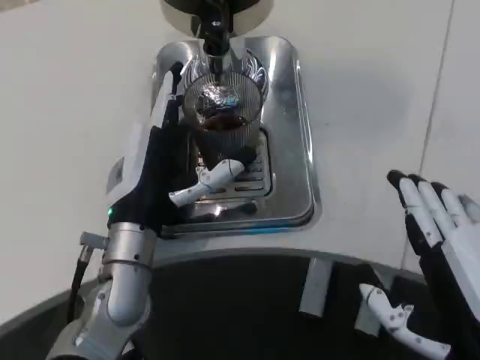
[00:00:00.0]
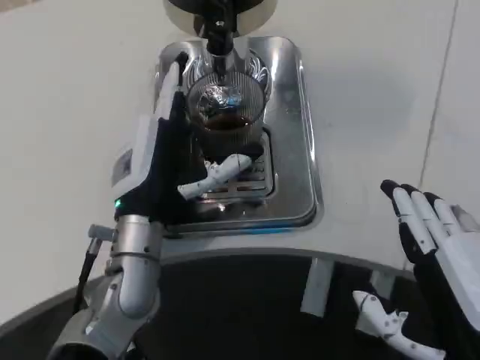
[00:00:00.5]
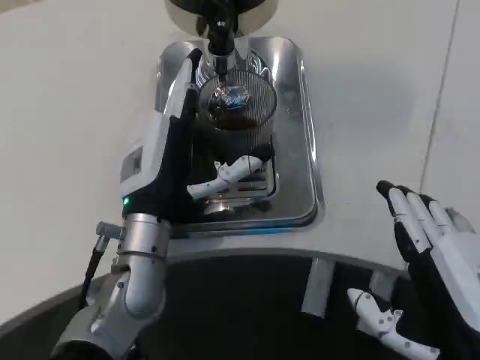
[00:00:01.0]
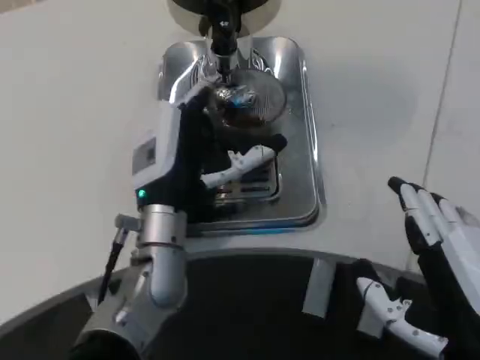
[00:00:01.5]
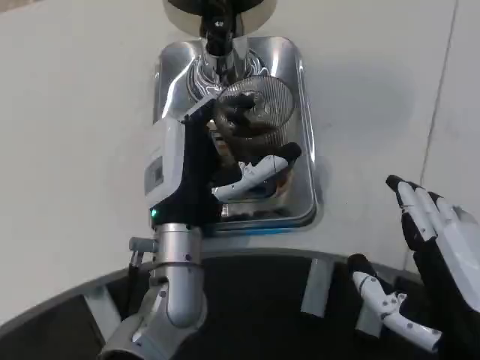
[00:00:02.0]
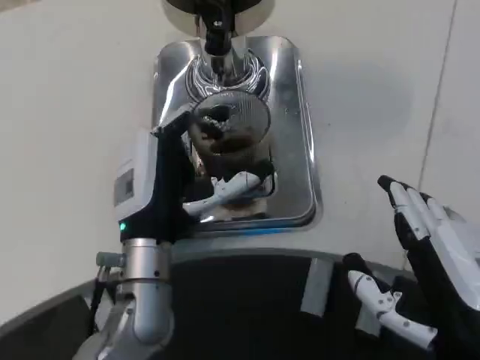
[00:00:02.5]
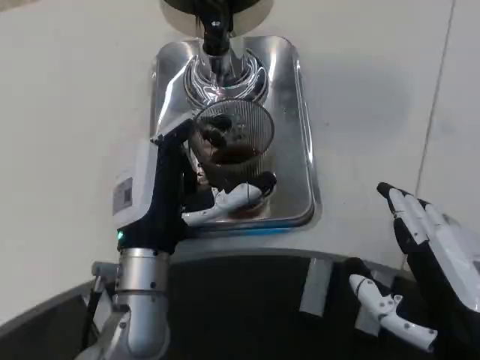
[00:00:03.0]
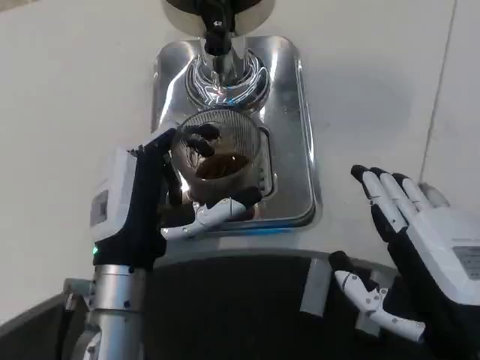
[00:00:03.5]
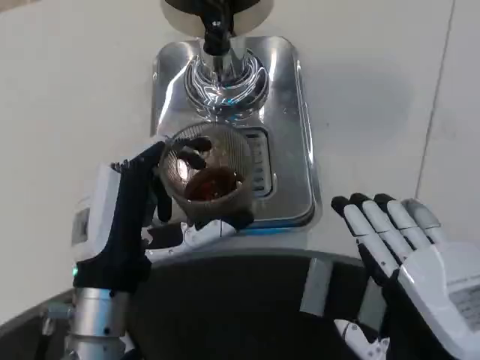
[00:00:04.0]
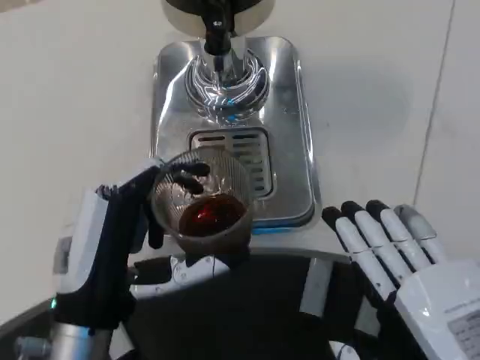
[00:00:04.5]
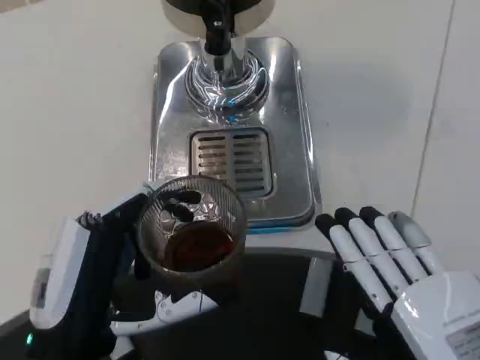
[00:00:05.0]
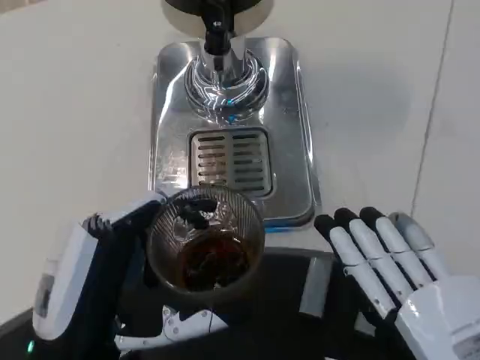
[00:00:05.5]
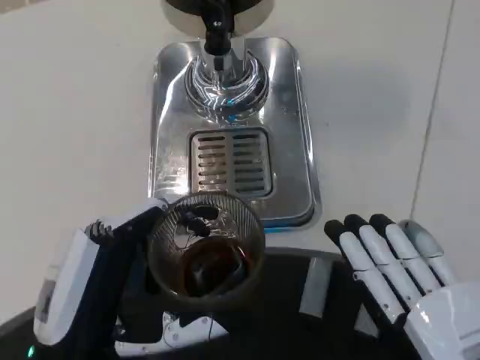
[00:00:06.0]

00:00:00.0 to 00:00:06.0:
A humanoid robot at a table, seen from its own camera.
Task of the whole recording: Grasp the cup under the faucet to collect the drink, then remove the cup.
00:00:00.0 to 00:00:02.0: The left hand travels to the right by approximately 5 cm.
00:00:02.0 to 00:00:04.0: The left hand is displaced backward and to the left by about 10 cm.
00:00:04.0 to 00:00:06.0: The left hand moves backward, roughly 10 cm.

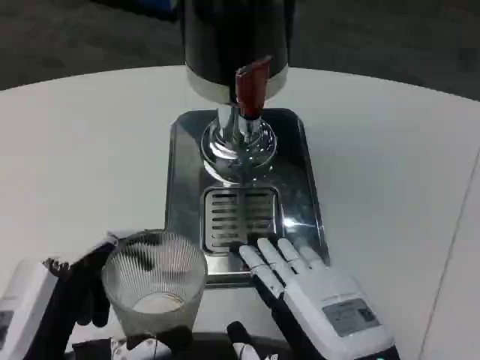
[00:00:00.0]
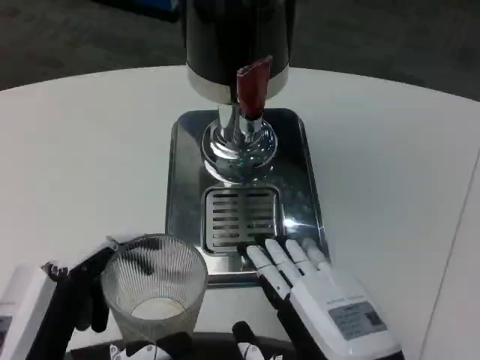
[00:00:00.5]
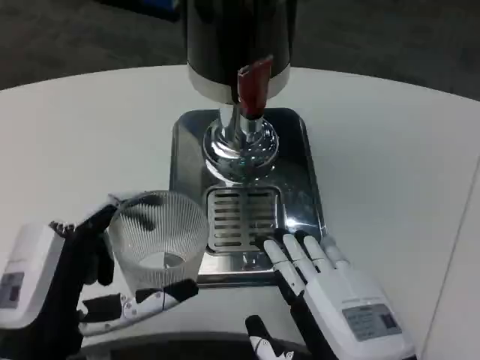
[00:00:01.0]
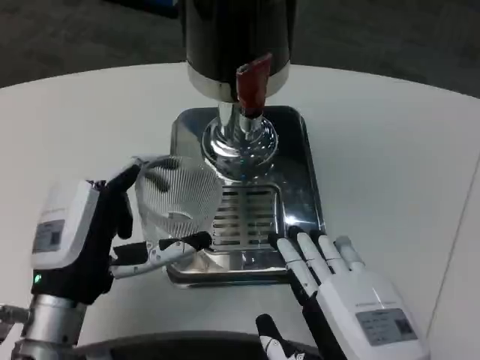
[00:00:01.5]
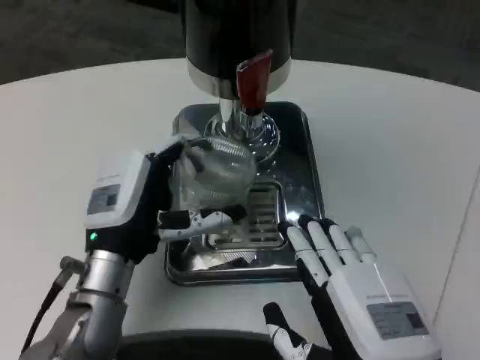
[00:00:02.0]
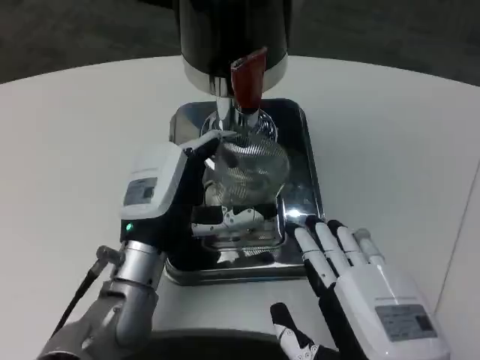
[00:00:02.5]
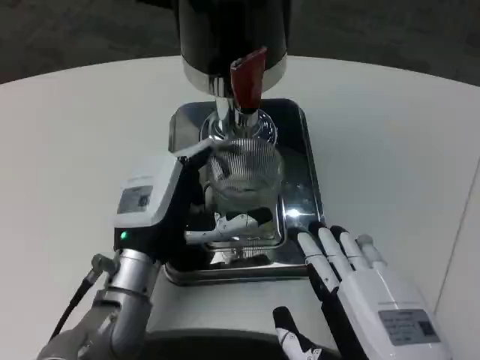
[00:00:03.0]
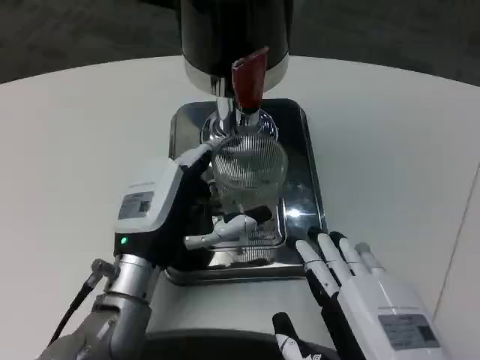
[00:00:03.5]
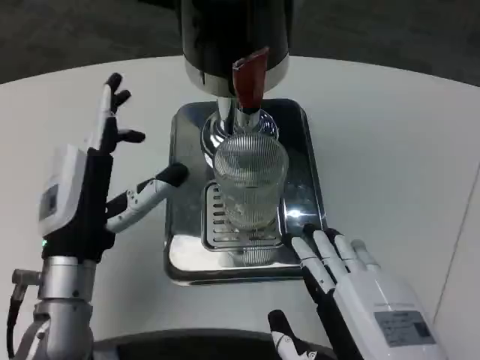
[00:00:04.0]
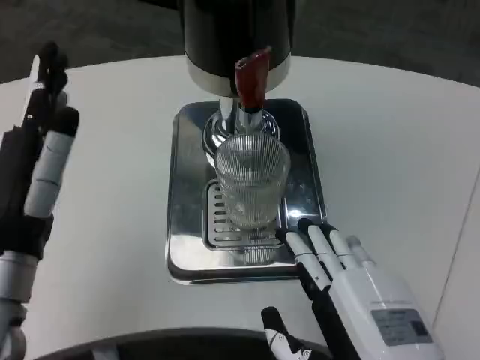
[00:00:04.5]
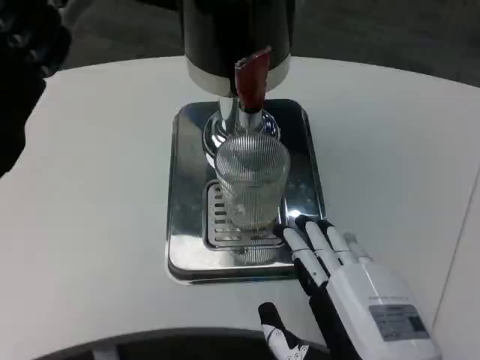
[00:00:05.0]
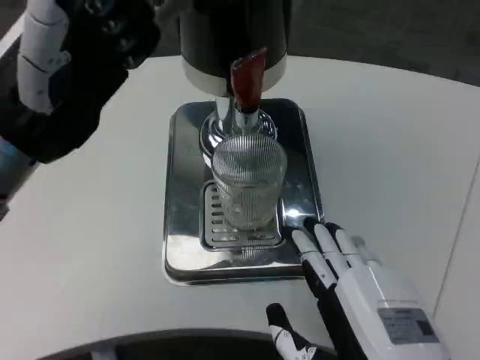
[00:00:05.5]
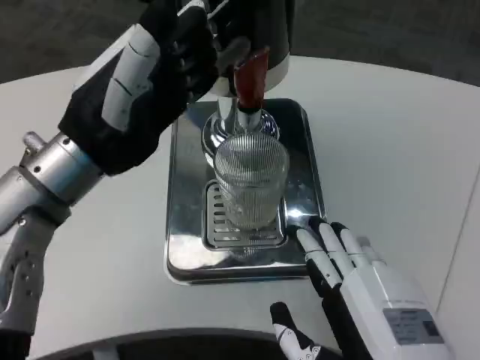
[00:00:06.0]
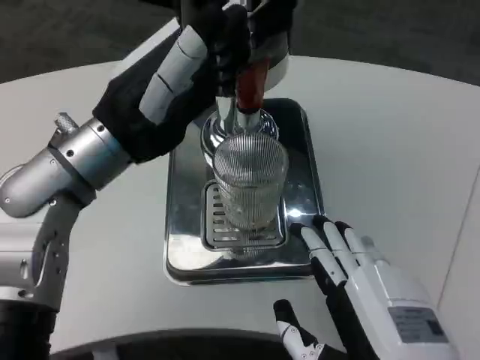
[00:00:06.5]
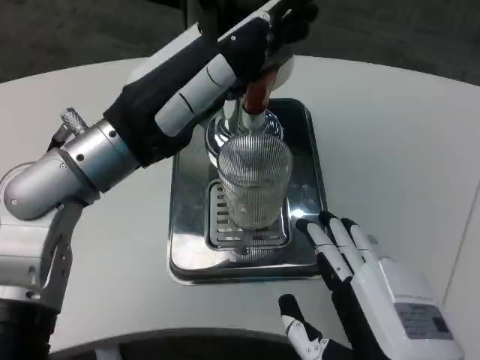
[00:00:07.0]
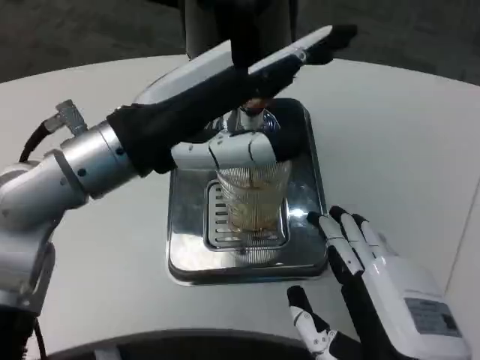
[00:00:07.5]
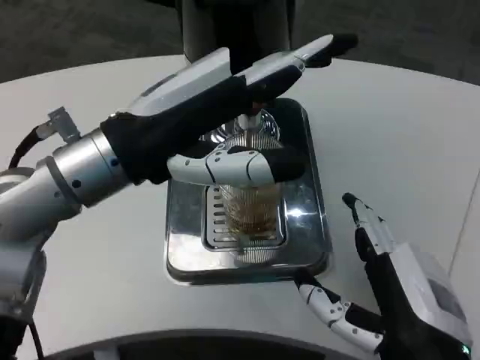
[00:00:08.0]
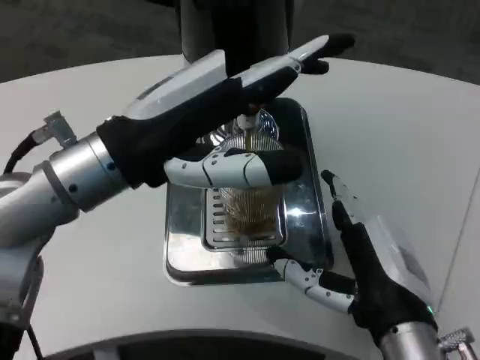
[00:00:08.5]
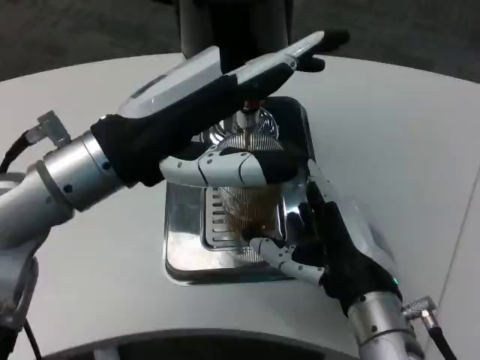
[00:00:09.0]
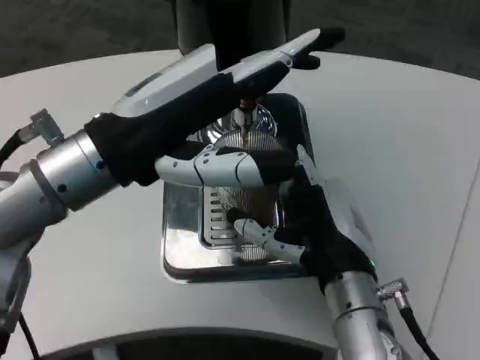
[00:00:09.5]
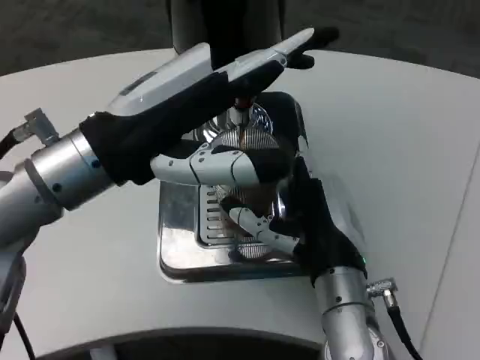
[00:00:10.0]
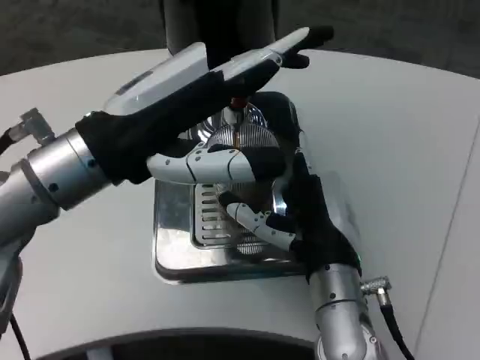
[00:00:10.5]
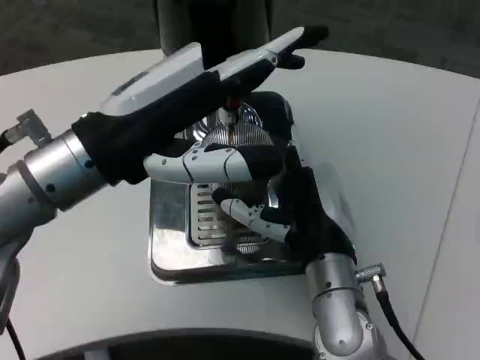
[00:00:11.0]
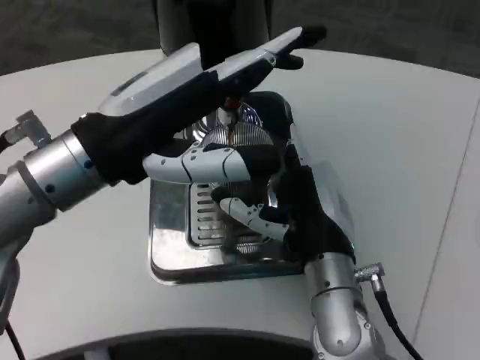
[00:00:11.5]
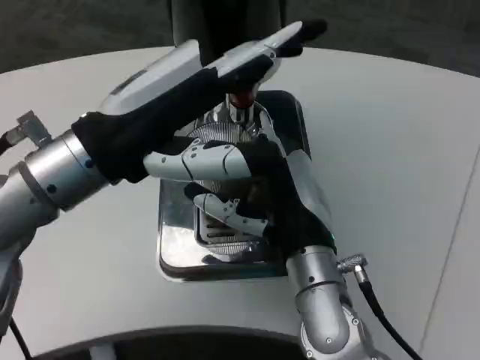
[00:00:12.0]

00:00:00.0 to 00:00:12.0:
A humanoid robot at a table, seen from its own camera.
Task of the whole recording: Grasp the cup under the faucet to collect the drink, then remove the cup.
00:00:00.0 to 00:00:02.0: The left hand shifts about 15 cm forward.
00:00:04.0 to 00:00:06.0: The left hand travels upward by some 15 cm.
00:00:08.0 to 00:00:10.0: The right hand moves forward and to the left, approximately 10 cm.

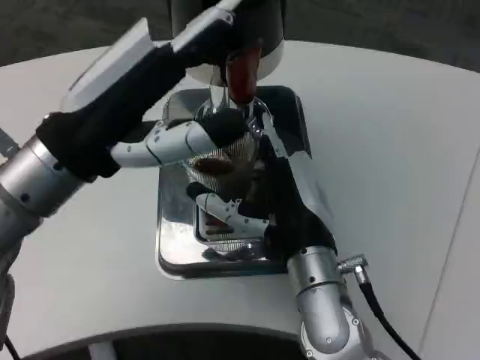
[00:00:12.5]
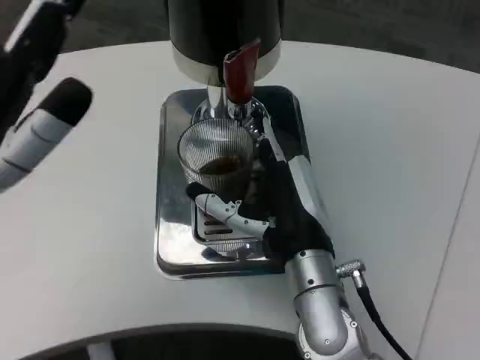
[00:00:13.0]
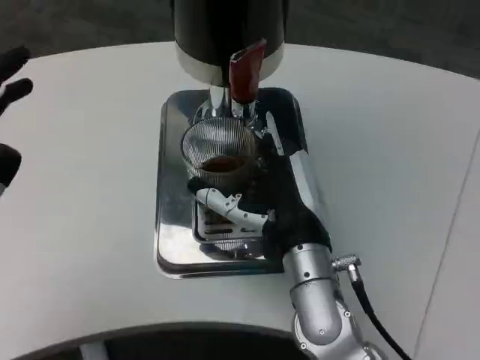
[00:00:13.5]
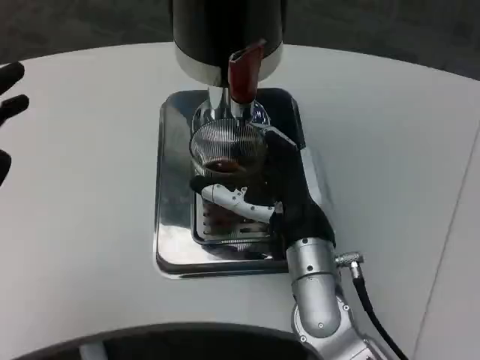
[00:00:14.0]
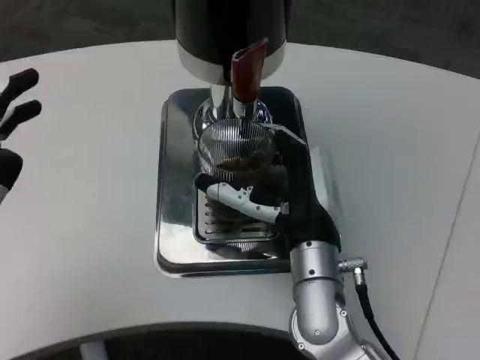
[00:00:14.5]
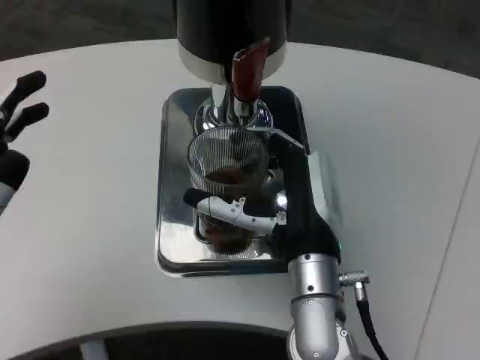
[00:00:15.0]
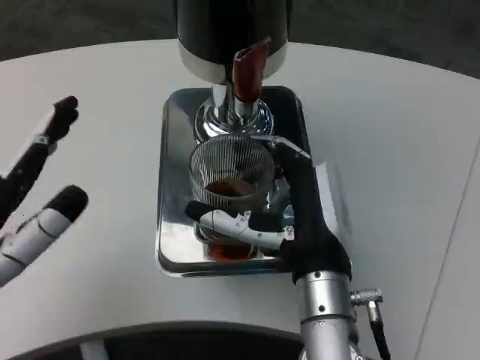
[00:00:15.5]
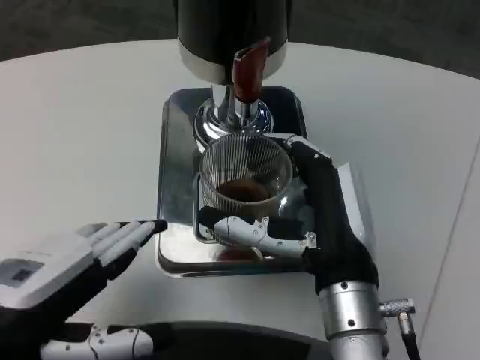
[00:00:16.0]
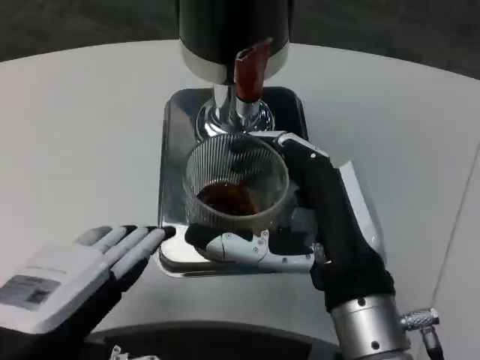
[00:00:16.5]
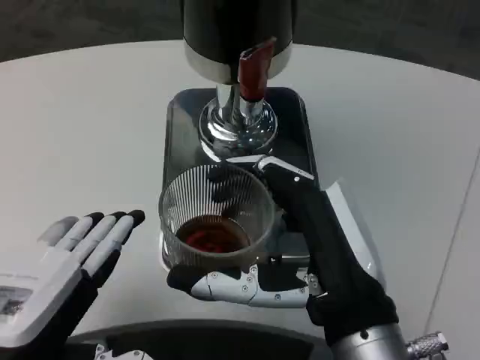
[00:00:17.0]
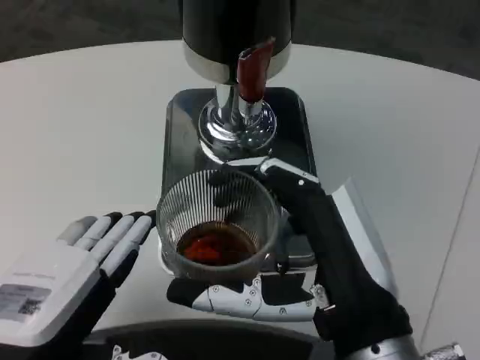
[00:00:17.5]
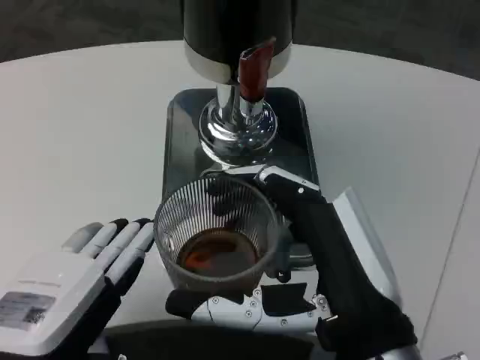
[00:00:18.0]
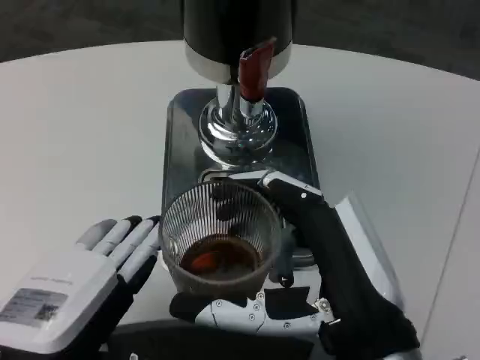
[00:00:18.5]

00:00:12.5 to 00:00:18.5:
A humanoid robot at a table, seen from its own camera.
Task of the whole recording: Grasp the cup under the faucet to collect the drink, then remove the cup.
00:00:12.5 to 00:00:14.5: The left hand heads backward, to the left and downward, covering approximately 15 cm.
00:00:14.5 to 00:00:16.5: The left hand shifts some 5 cm to the right; the right hand is displaced backward by roughly 10 cm.
00:00:16.5 to 00:00:18.5: The right hand moves backward, roughly 5 cm.
